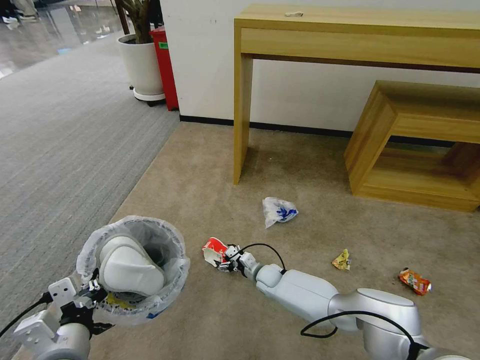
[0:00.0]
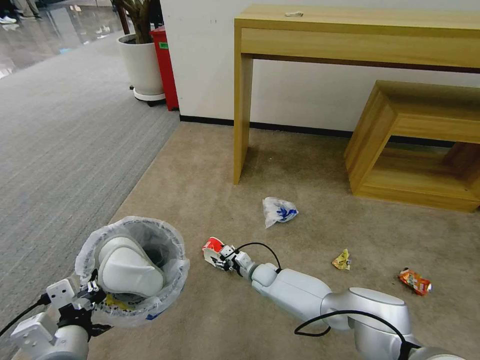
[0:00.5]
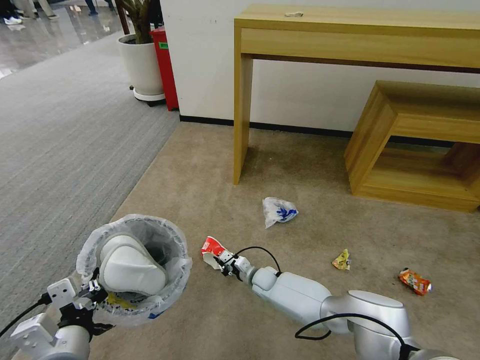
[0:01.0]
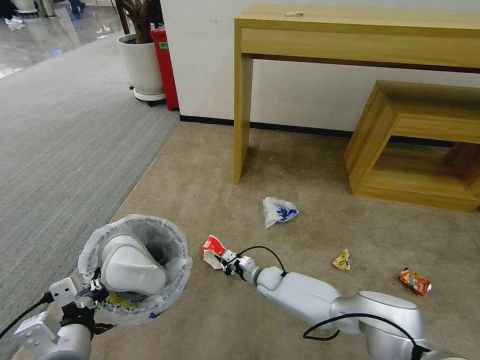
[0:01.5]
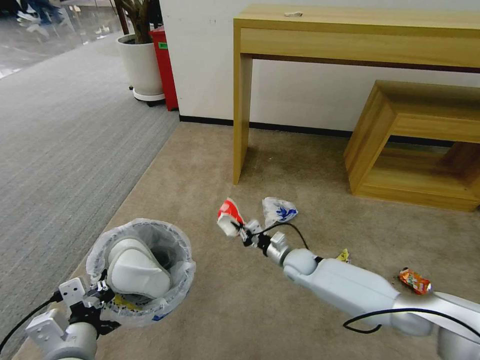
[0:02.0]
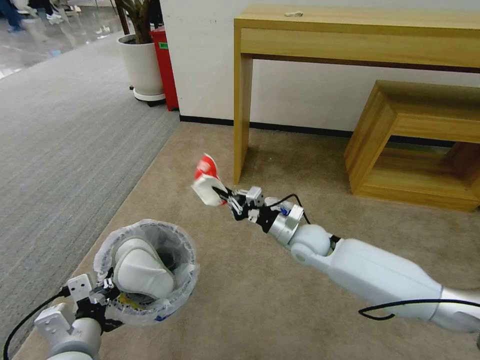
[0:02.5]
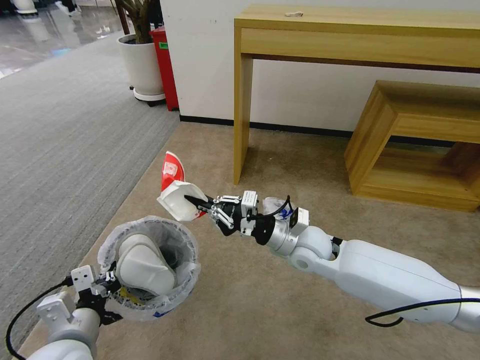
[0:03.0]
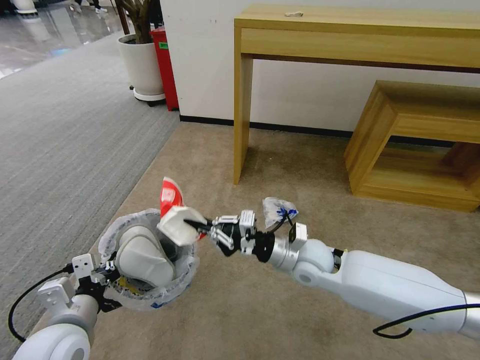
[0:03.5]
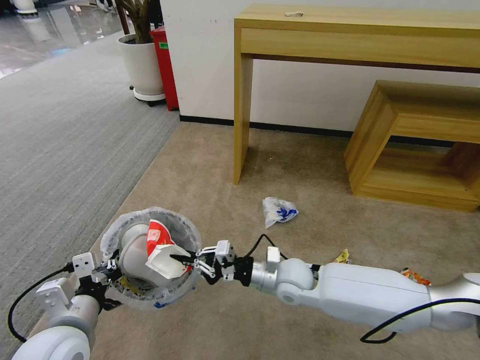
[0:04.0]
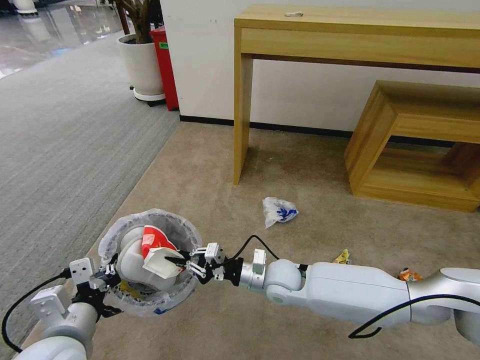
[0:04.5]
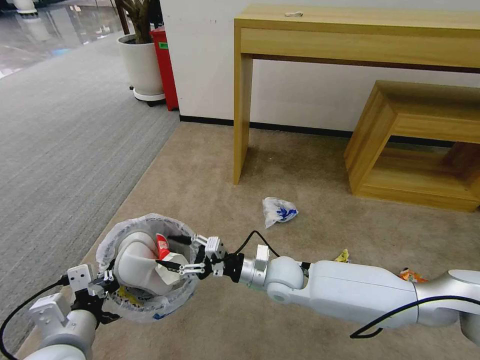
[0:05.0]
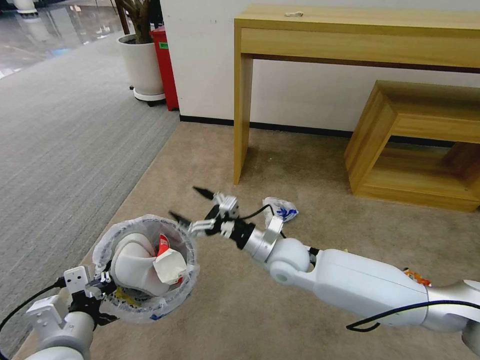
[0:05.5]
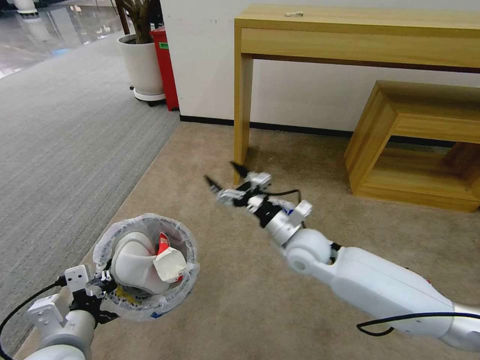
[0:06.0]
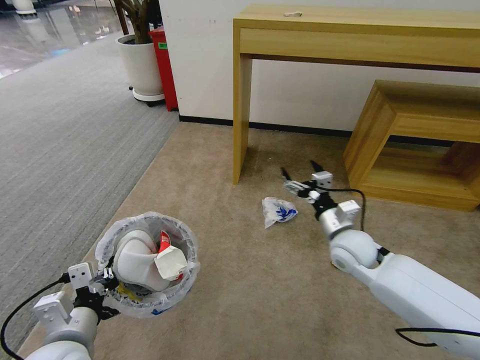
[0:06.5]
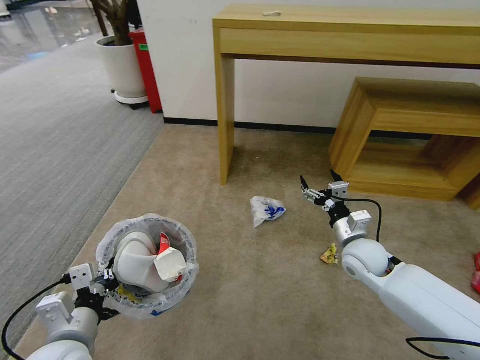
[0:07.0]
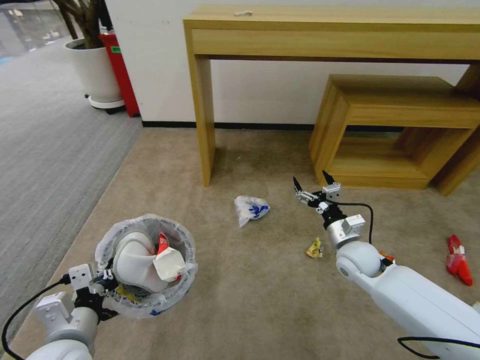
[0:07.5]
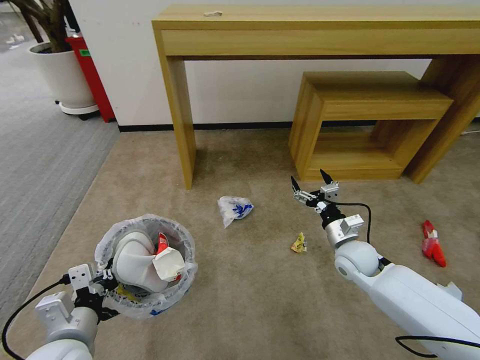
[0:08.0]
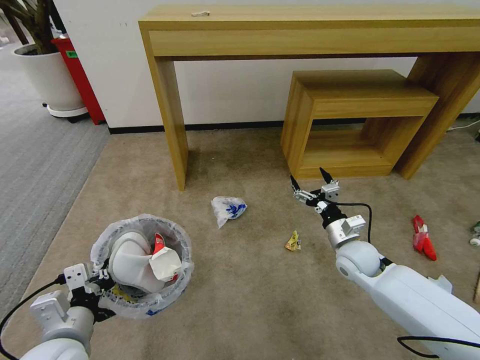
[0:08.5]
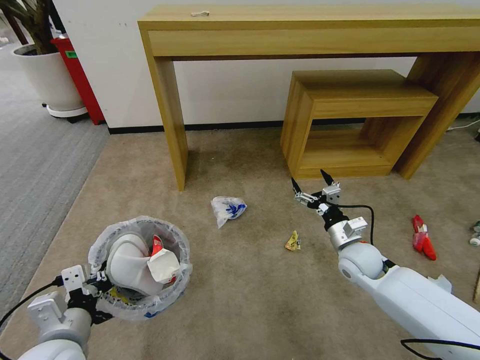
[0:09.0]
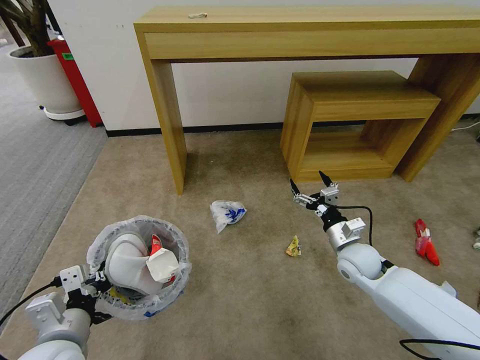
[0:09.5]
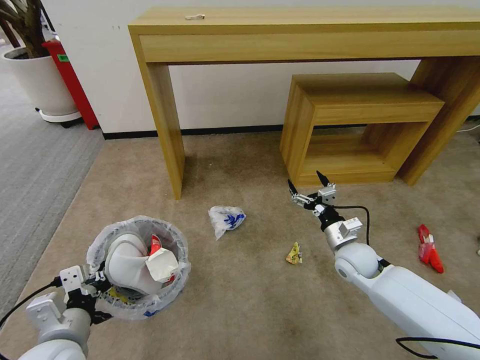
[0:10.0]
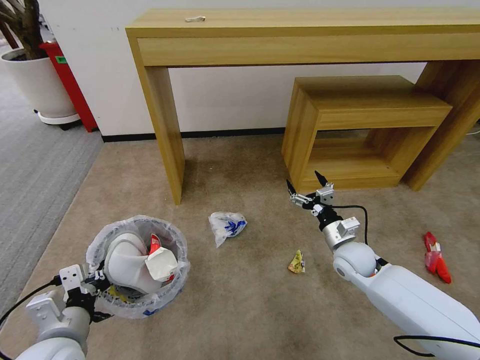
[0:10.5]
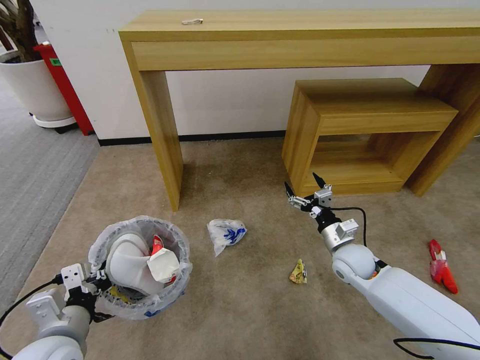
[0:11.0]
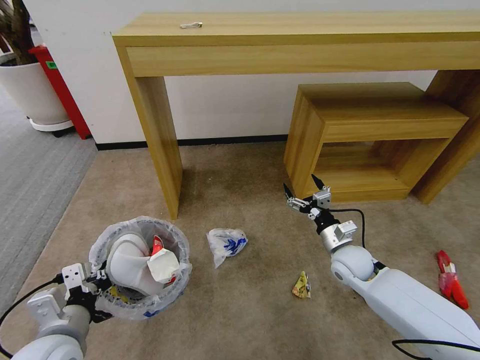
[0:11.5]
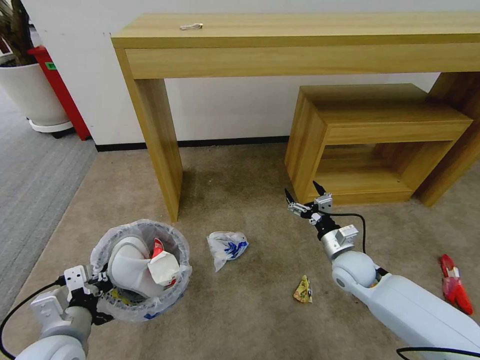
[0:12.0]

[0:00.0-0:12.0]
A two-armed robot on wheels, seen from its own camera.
Task of the whole recording: Pick up the trash bin and place the garbage on the floor into it.
0.0 to 2.0 s: The right gripper heads upward and to the right, covering approximately 10 cm, and closes.
2.0 to 4.0 s: The right gripper is displaced upward, backward and to the left by about 15 cm.
4.0 to 6.0 s: The right gripper goes roughly 10 cm upward, and opens its fingers.
6.0 to 8.0 s: The right gripper goes some 15 cm to the right and downward.

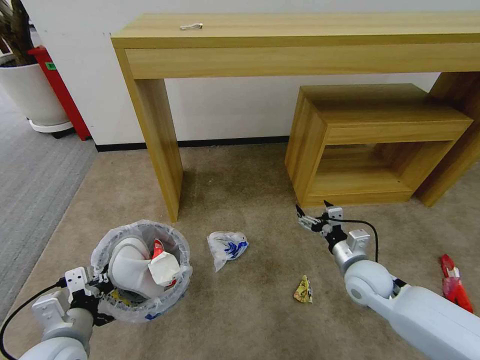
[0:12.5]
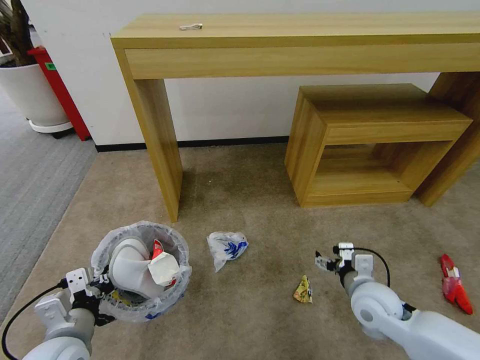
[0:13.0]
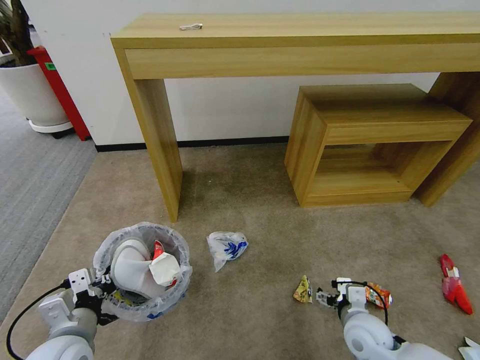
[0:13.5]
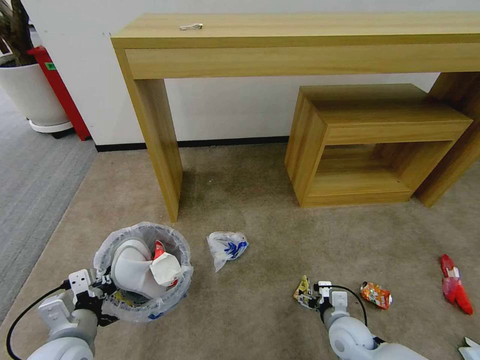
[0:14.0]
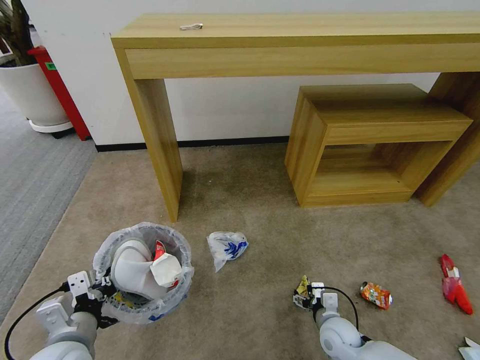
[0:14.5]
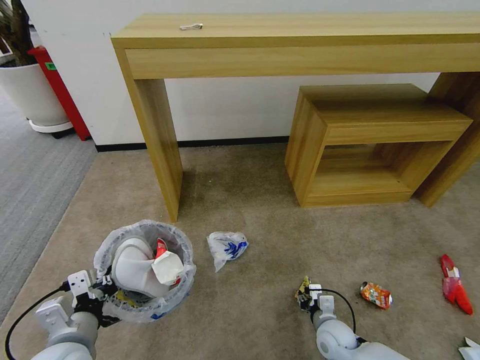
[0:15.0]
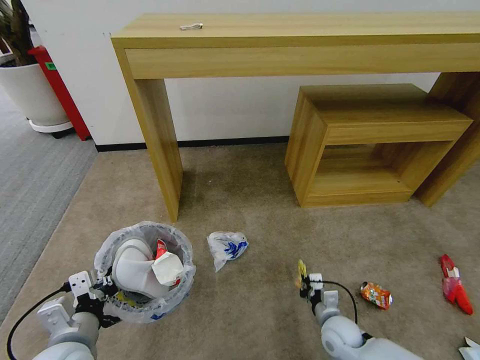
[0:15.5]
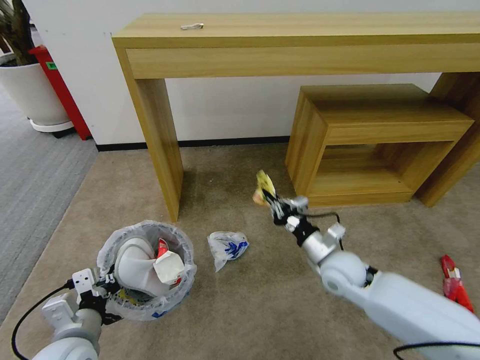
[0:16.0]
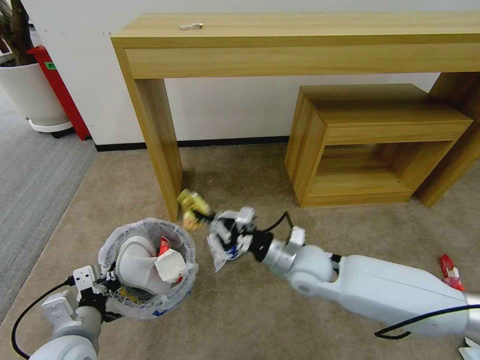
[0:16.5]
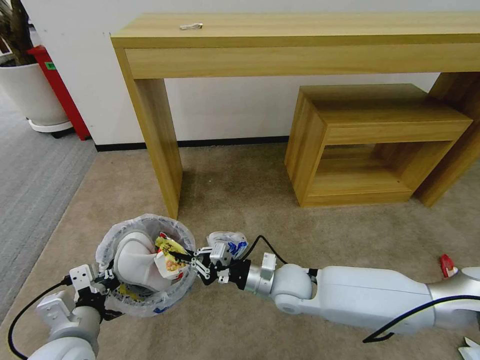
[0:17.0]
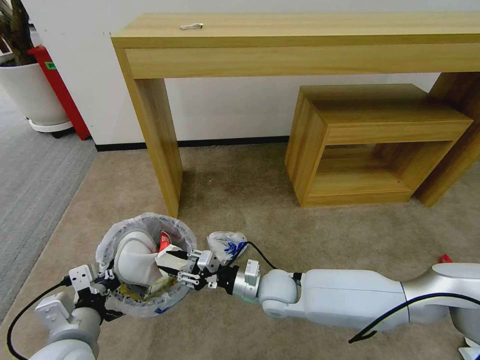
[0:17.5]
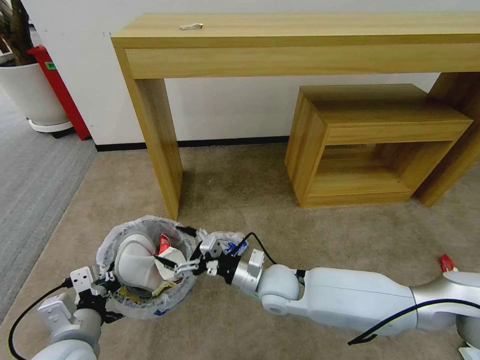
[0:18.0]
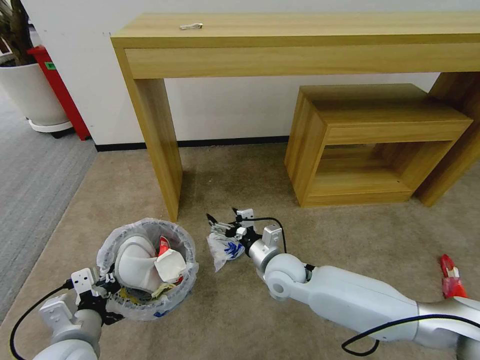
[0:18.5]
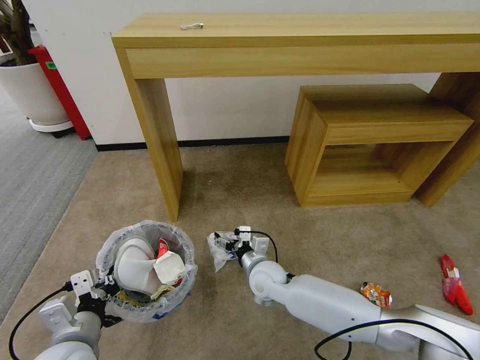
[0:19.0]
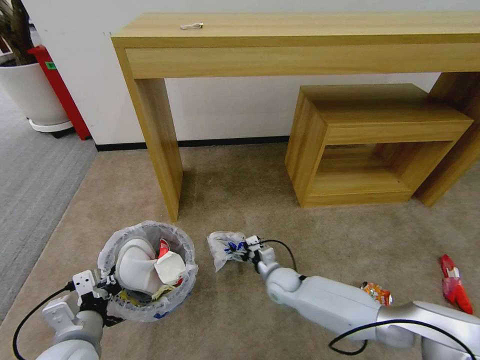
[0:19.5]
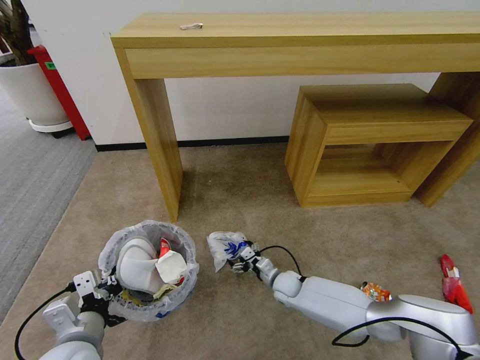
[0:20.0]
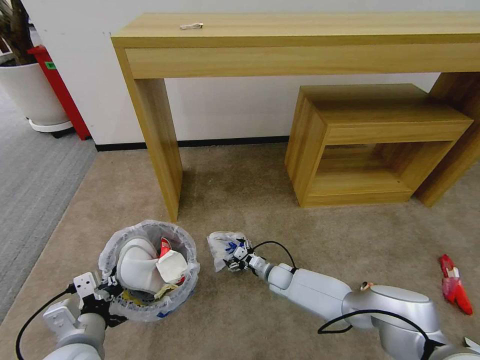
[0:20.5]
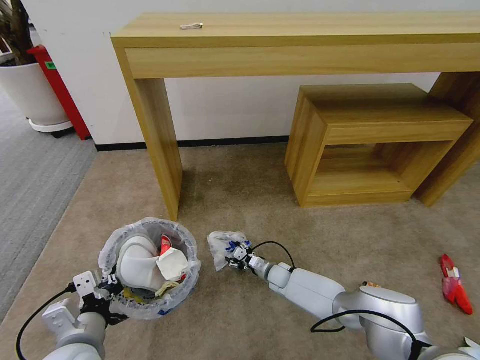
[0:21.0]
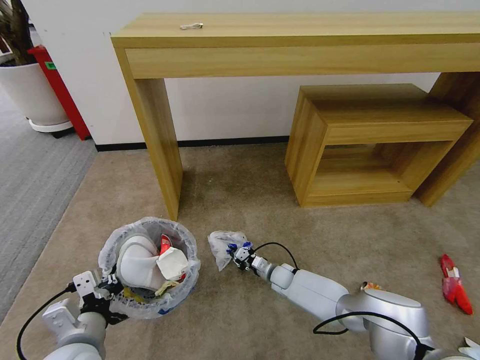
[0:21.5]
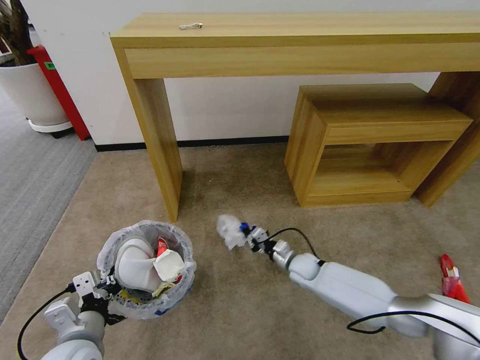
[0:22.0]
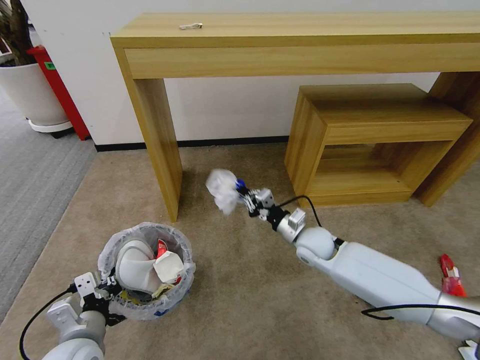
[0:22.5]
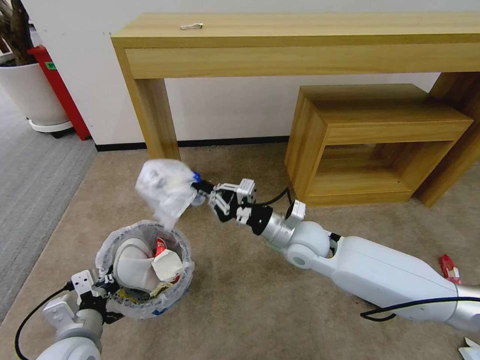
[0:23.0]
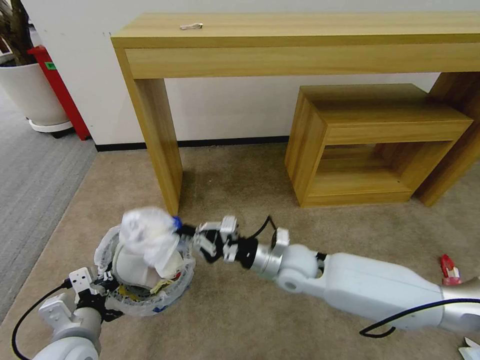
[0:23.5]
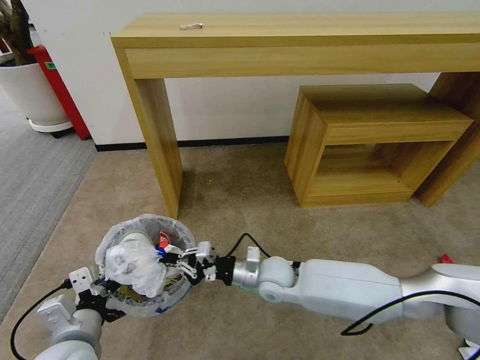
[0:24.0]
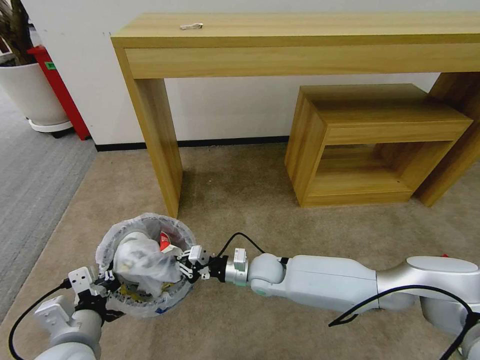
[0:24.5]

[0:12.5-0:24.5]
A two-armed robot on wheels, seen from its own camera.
Task of the whole recording: Pick up the trash bin and place the garbage on the floor into it.
12.5 to 14.5 s: The right gripper shifts roughly 20 cm downward and backward.
14.5 to 16.5 s: The right gripper travels upward, to the left and forward by roughly 25 cm, and closes.
16.5 to 18.5 s: The right gripper opens up.
18.5 to 20.5 s: The right gripper moves downward, some 20 cm.
20.5 to 22.5 s: The right gripper travels upward by roughly 20 cm, and closes up.
22.5 to 24.5 s: The right gripper heads to the left and backward, covering about 15 cm, and travels upward and back again, approximately 10 cm each way.

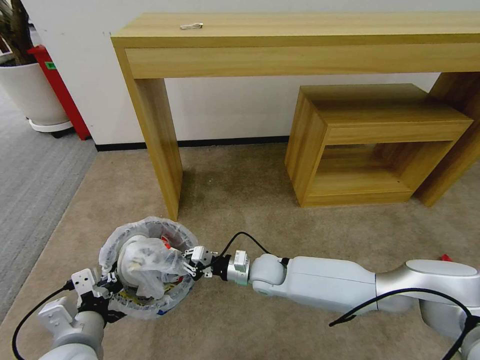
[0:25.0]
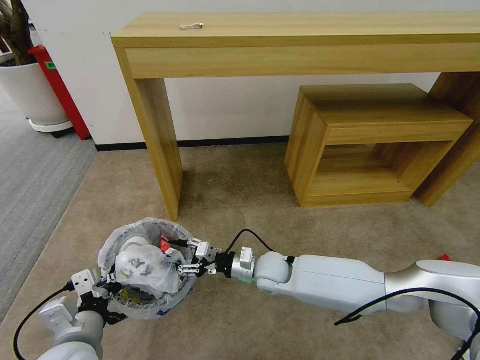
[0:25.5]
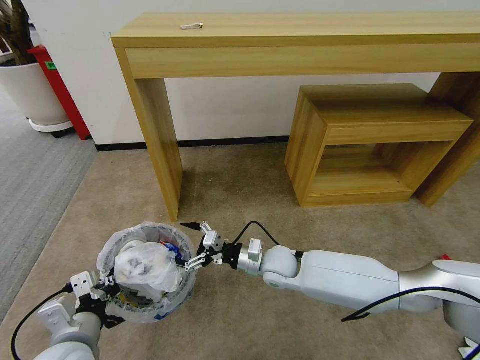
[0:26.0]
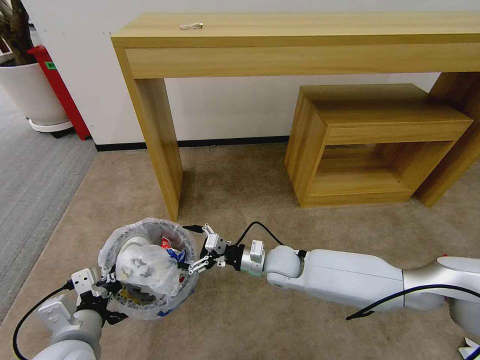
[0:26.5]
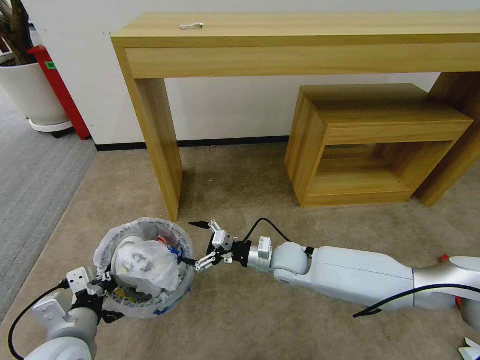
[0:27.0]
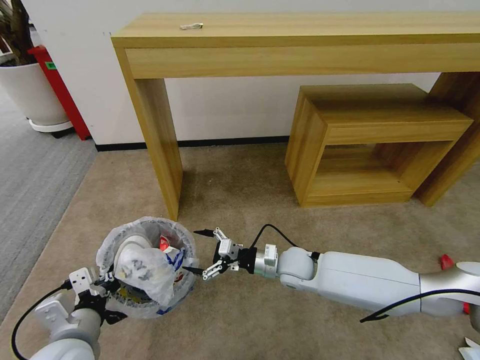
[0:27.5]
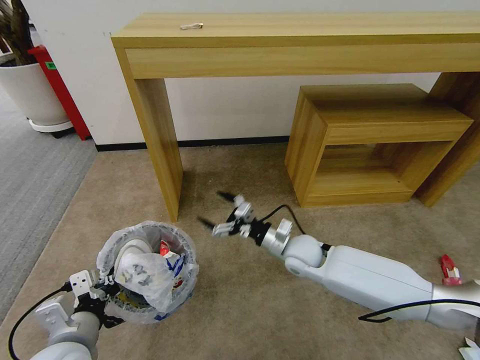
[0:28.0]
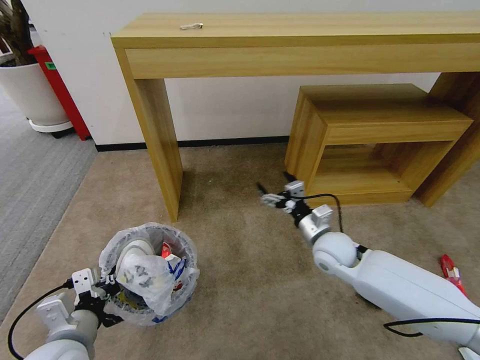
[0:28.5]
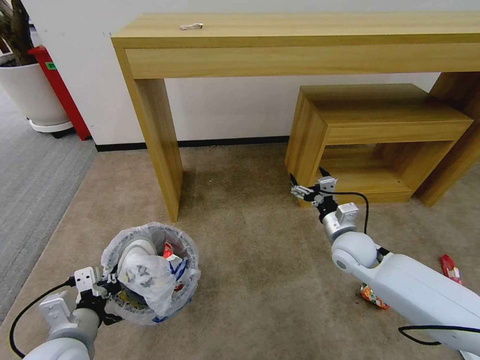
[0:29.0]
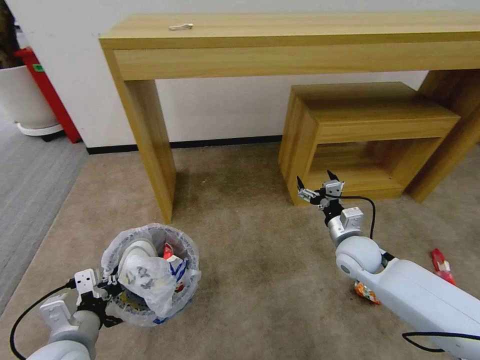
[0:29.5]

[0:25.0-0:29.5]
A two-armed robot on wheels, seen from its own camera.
Task of the whole recording: Pick up the trash bin and place the garbage on the floor into it.
25.0 to 27.0 s: The right gripper is displaced to the right by approximately 5 cm, and opens.
27.0 to 29.5 s: The right gripper travels to the right by roughly 15 cm.
